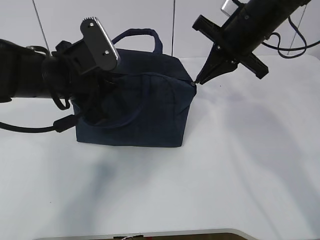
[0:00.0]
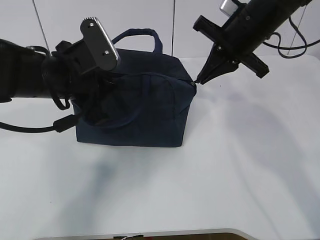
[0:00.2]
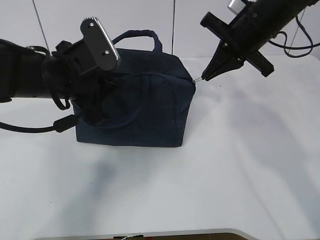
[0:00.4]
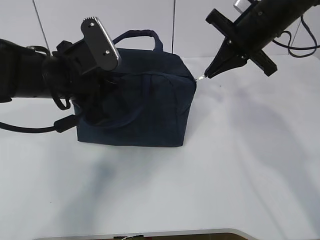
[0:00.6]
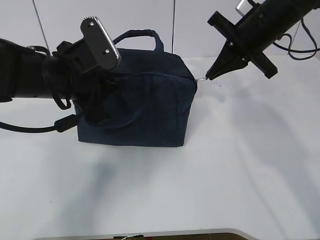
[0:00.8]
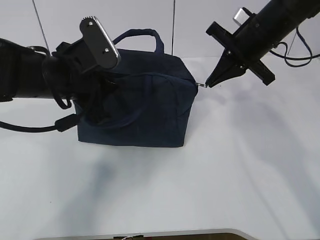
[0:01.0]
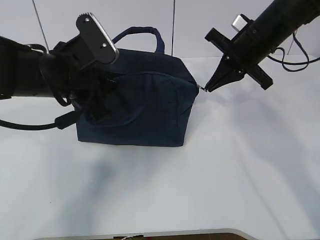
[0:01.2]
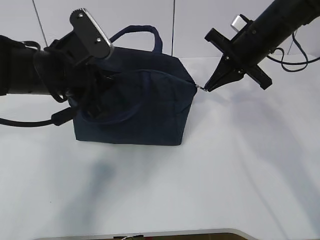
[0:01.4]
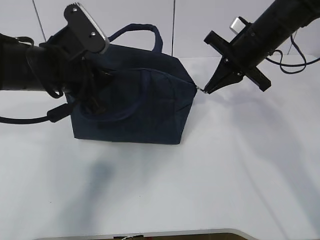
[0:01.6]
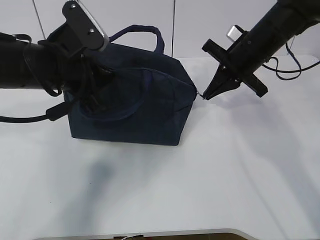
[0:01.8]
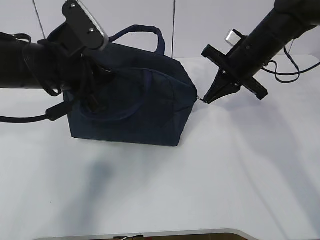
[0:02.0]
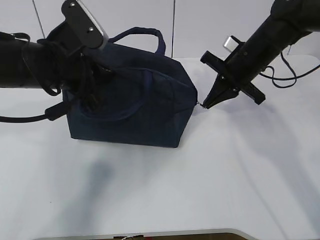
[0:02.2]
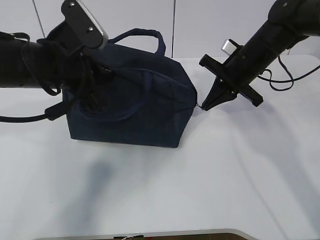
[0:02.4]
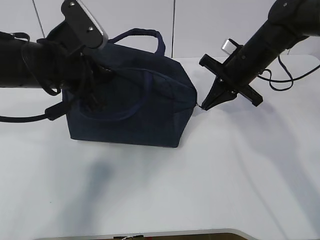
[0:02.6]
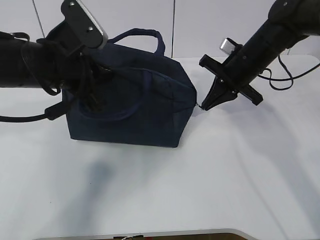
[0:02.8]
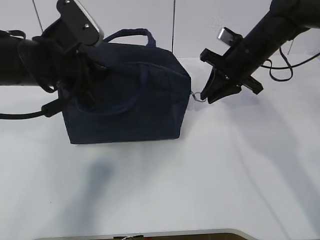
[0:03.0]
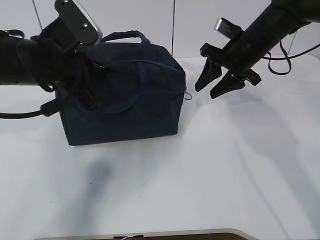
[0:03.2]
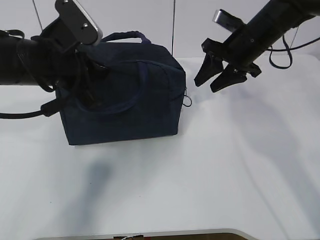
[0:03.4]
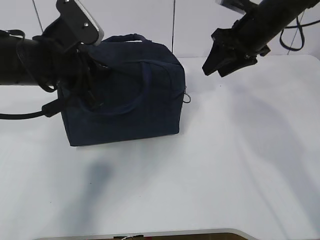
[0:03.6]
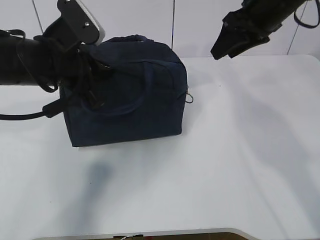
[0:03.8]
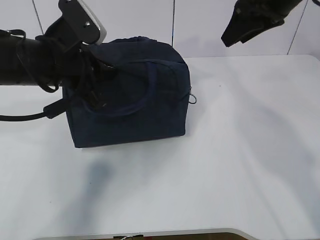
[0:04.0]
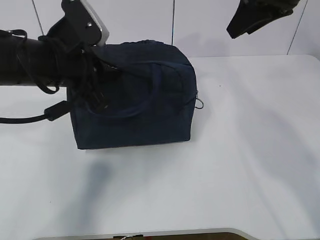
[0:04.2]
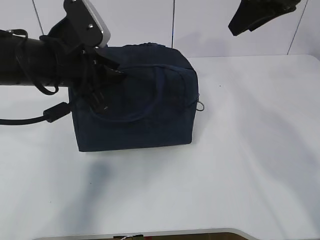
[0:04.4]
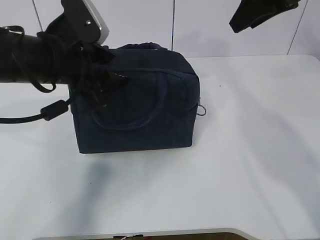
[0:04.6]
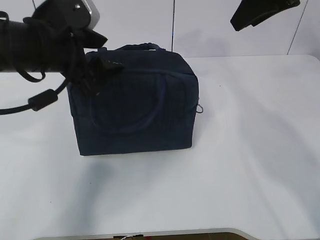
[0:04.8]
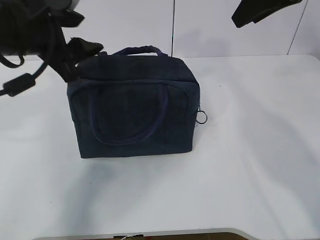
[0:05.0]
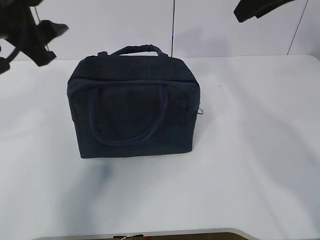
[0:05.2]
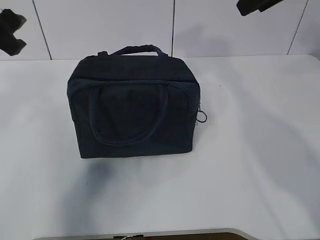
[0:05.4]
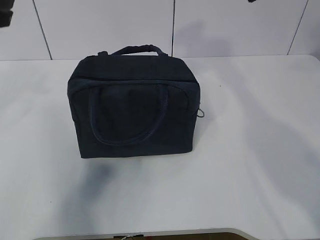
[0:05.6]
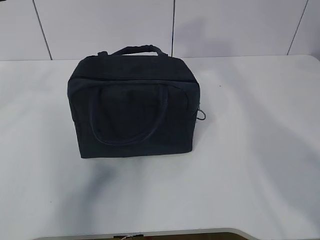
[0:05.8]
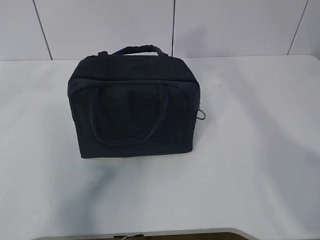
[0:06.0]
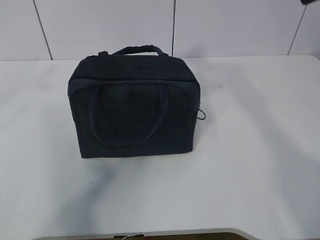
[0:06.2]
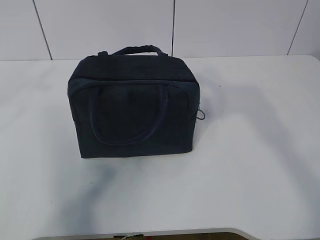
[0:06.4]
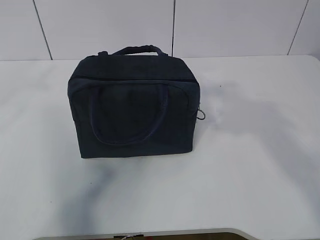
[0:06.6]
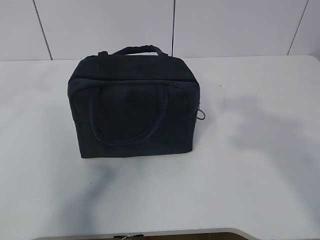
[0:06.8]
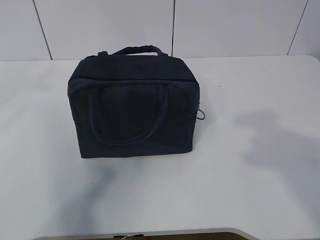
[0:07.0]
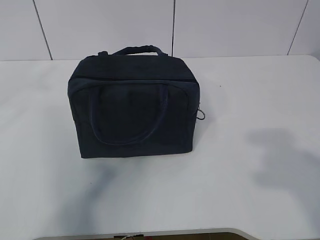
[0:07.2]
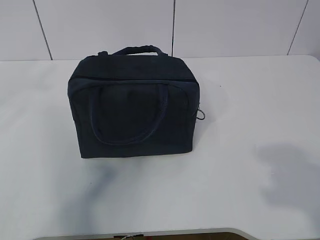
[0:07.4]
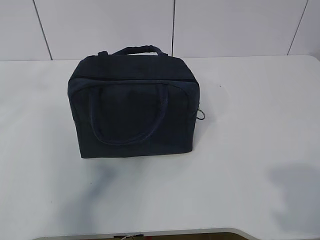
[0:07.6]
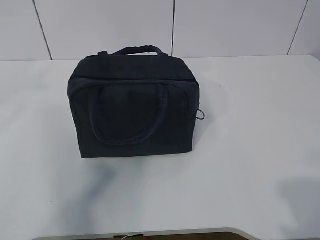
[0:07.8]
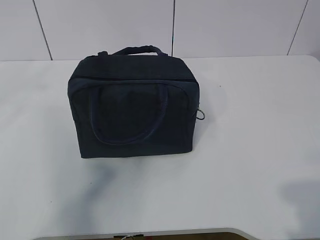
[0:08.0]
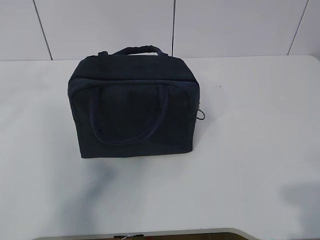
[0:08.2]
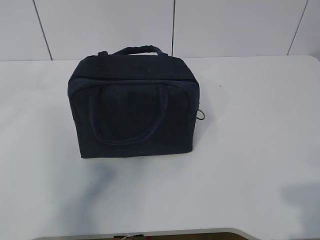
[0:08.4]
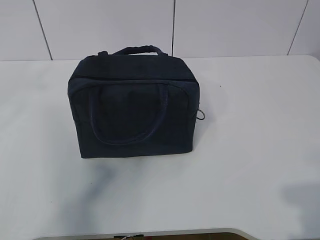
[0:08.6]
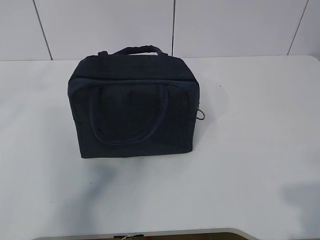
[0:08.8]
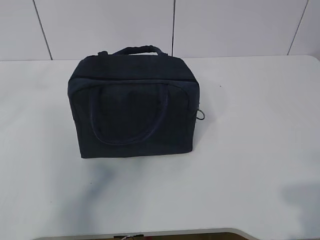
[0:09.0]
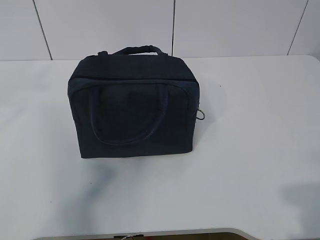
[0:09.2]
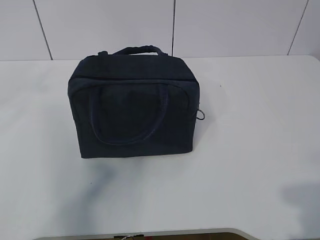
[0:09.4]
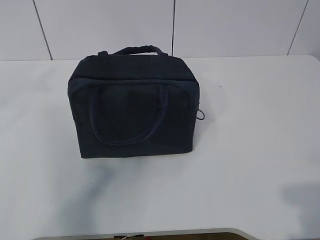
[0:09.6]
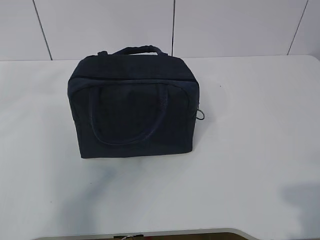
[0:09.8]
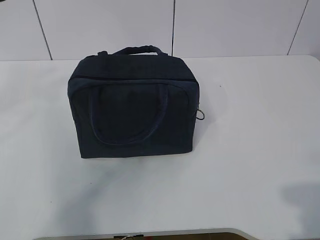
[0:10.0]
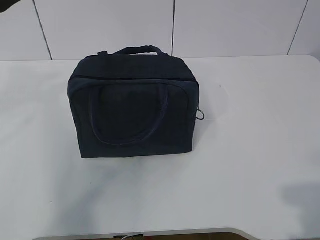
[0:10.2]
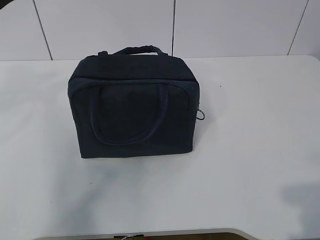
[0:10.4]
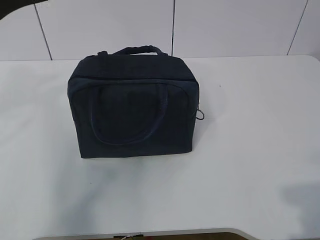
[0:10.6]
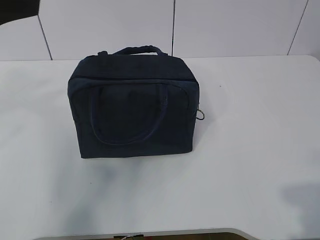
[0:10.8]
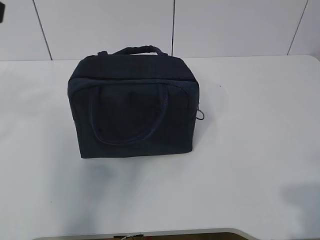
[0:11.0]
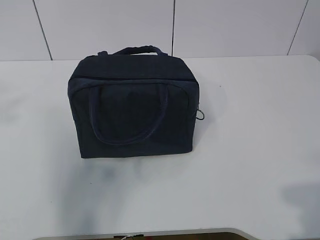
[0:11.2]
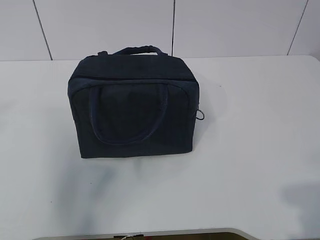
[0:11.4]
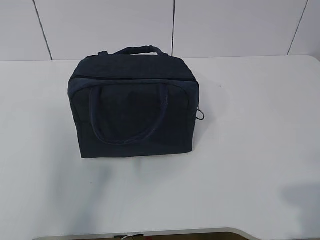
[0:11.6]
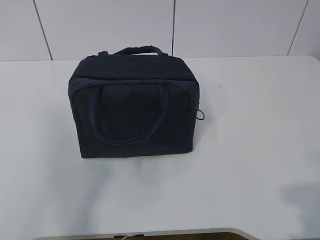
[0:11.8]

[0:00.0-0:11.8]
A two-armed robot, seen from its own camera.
0:00.0 to 0:01.4: The right gripper shifts by approximately 5 cm.
0:01.4 to 0:03.0: The grippers make only small movements.
0:03.0 to 0:04.4: The right gripper travels upward by some 15 cm, and opens.
0:04.4 to 0:06.0: The right gripper heads backward and upward, covering roughly 10 cm. Meanwhile the left gripper heads upward, to the left and backward, covering some 15 cm, and opens its fingers.

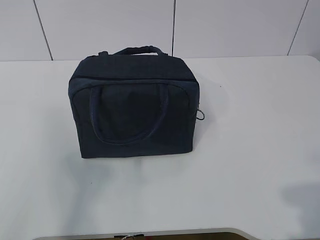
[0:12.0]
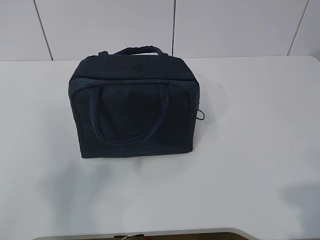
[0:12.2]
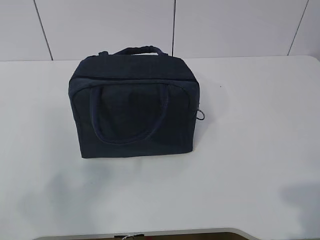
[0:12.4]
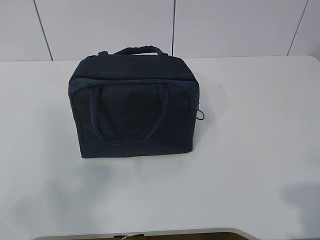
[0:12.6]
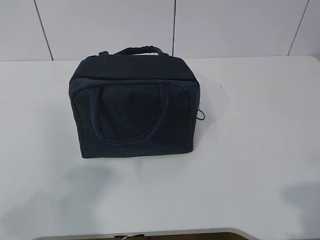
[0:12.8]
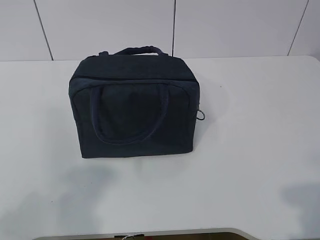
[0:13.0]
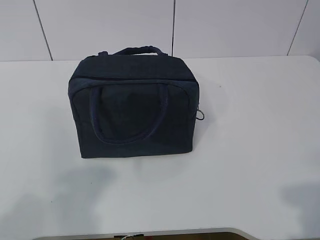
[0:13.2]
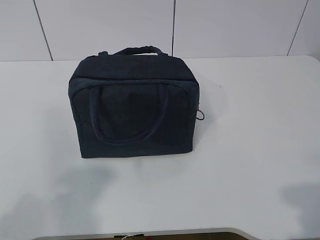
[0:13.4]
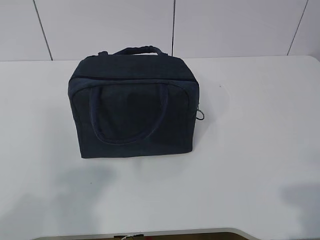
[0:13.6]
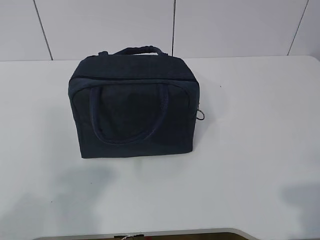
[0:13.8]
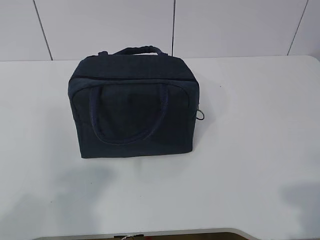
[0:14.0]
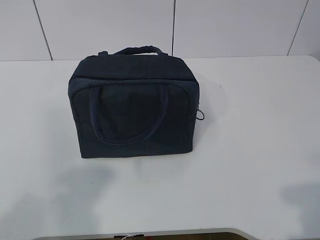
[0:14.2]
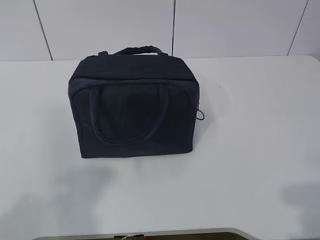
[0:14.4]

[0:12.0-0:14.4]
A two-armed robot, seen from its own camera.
0:13.2 to 0:14.4: Both grippers stay about where they are.

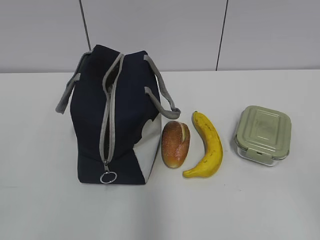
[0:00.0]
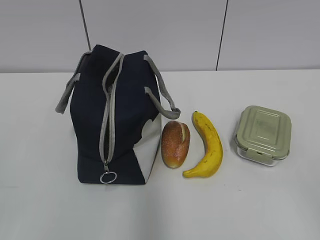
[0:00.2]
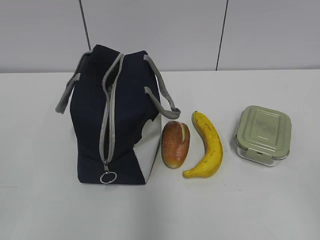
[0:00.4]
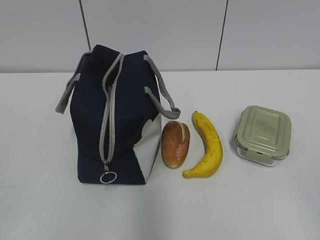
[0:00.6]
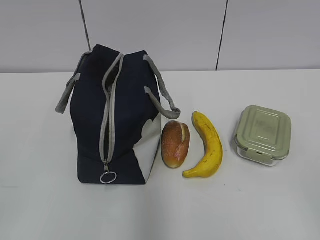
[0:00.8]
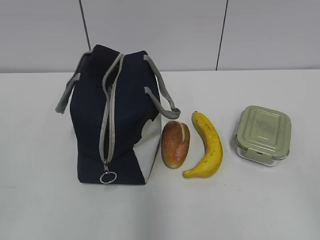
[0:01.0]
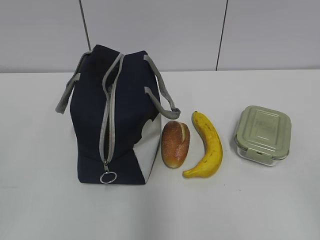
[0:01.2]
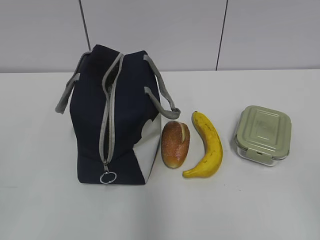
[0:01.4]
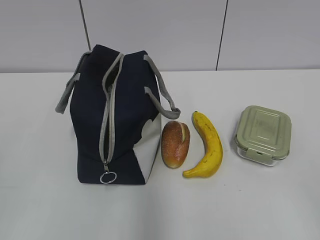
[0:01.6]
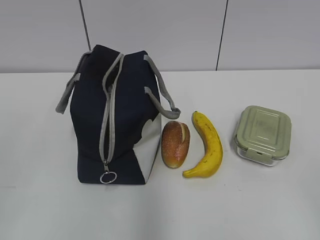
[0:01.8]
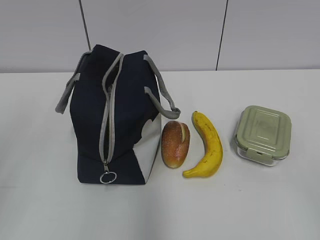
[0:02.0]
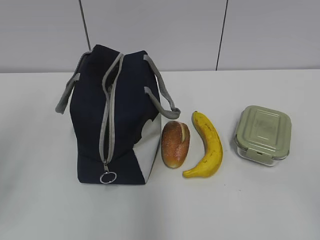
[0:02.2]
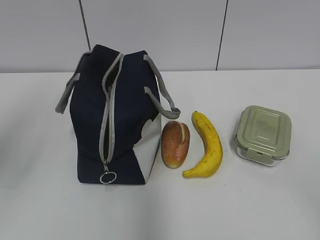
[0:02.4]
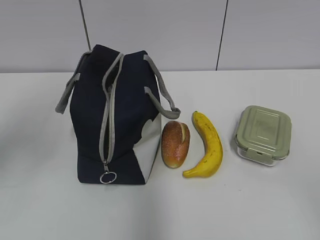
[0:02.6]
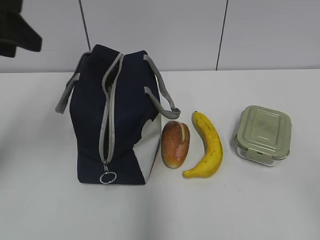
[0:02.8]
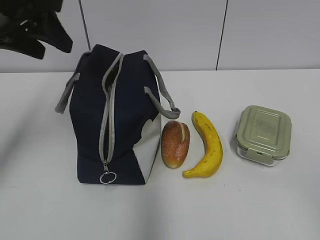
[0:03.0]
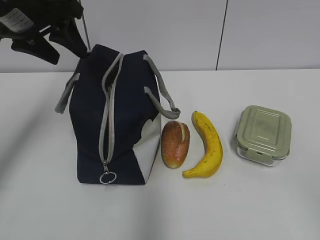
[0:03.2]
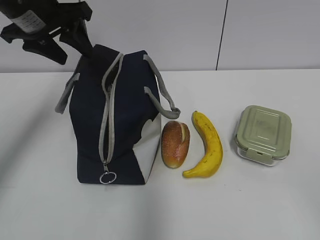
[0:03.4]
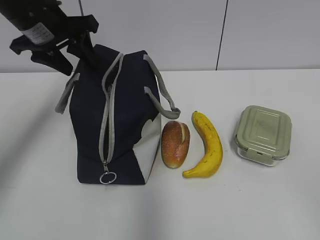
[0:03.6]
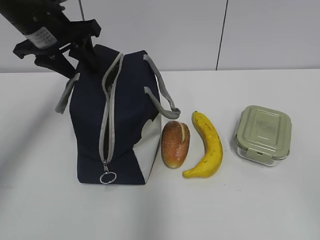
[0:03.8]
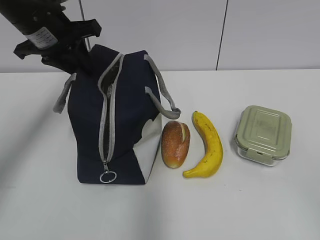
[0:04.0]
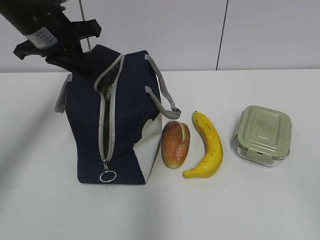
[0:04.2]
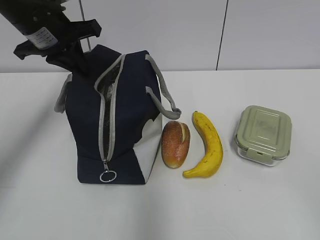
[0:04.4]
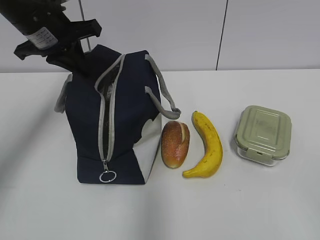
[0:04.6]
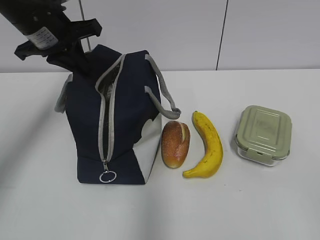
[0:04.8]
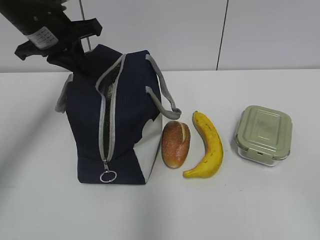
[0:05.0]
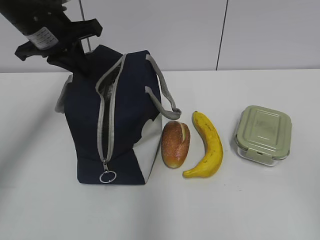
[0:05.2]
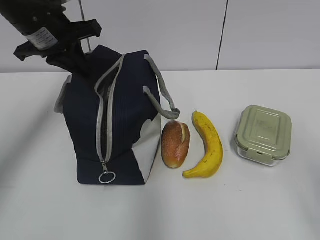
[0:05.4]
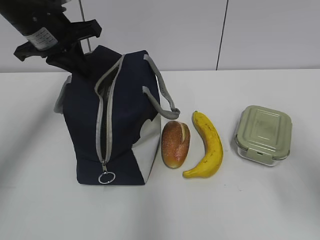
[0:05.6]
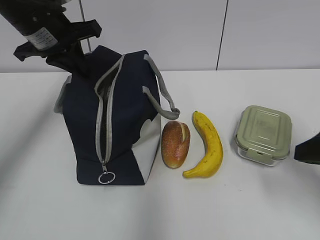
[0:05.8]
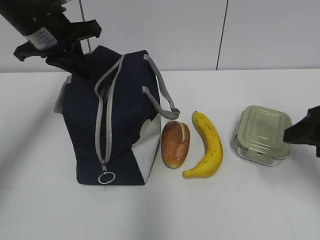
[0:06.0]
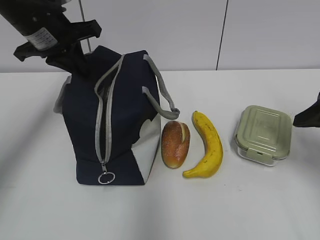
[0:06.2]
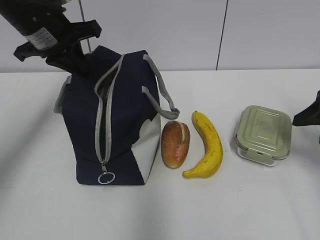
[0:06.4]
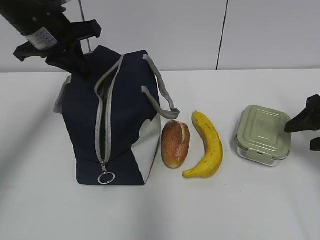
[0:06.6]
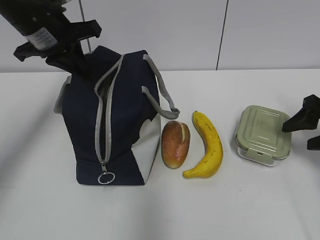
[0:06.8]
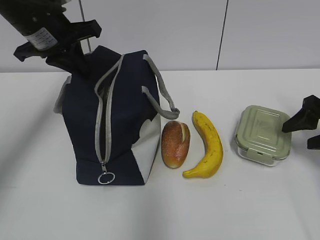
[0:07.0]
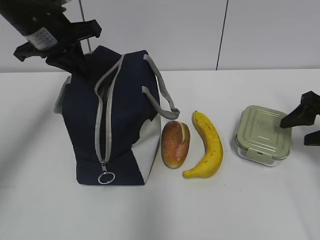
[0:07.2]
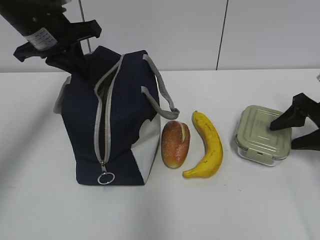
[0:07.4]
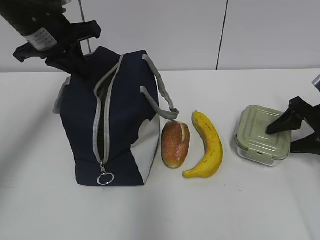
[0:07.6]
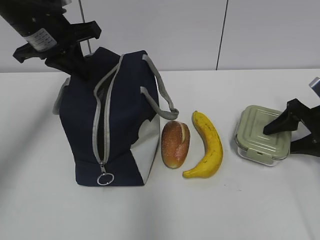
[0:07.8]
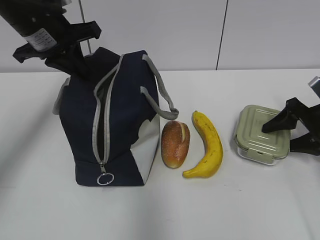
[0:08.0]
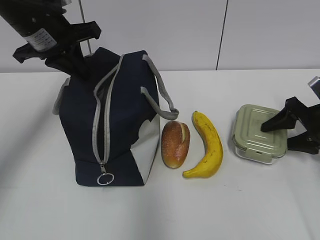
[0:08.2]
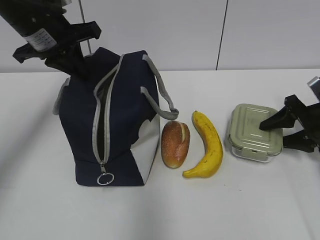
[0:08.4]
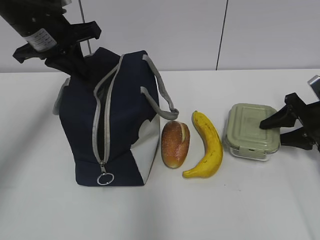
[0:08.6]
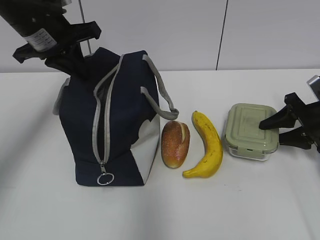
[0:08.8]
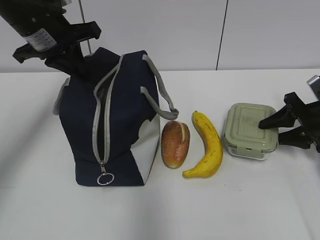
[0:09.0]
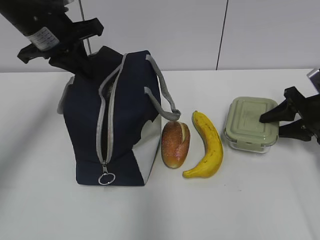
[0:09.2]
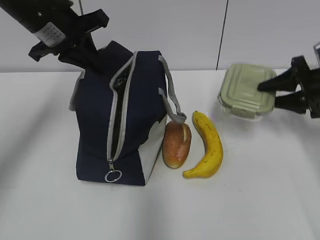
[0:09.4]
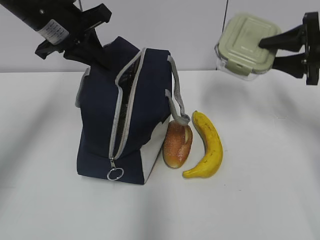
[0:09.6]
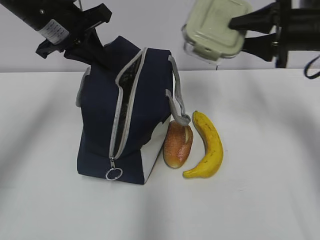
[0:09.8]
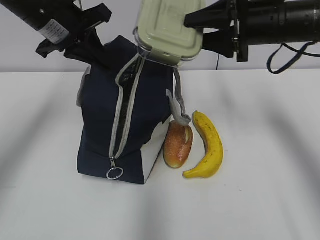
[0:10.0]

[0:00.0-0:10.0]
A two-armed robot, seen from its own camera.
Step, 0:00.0 to 0:04.0: Grab the lunch bag with your left hand.
Step, 0:04.2 to 0:09.0: Grab the lunch box with your right hand.
0:01.4 to 0:02.8: The left gripper shifts approximately 25 cm forward.
0:02.8 to 0:04.2: The left gripper travels forward and downward by approximately 15 cm, and closes.
0:04.2 to 0:05.8: The right gripper travels forward by about 20 cm.
0:05.8 to 0:07.2: The right gripper goes about 20 cm forward, to the right and downward.
0:07.2 to 0:08.6: The right gripper shifts by about 5 cm.
0:08.6 to 0:10.0: The right gripper goes some 20 cm upward and to the left.
